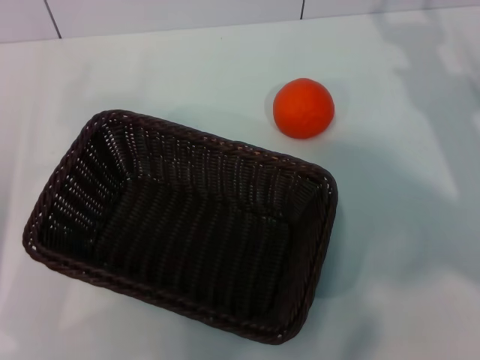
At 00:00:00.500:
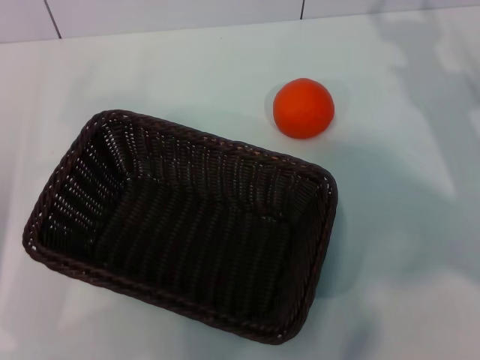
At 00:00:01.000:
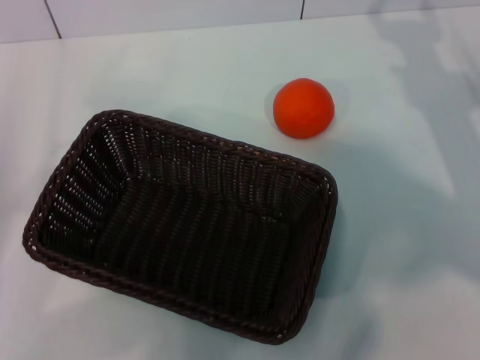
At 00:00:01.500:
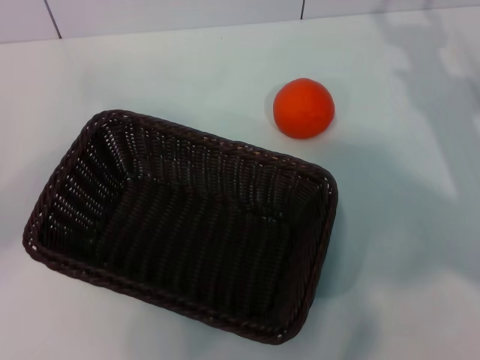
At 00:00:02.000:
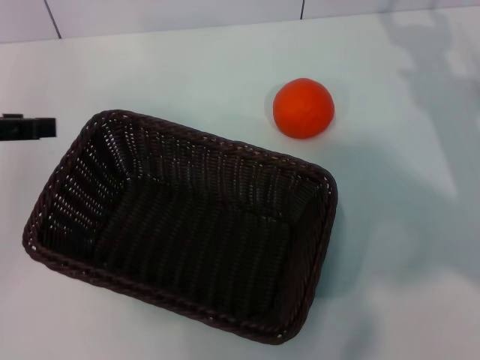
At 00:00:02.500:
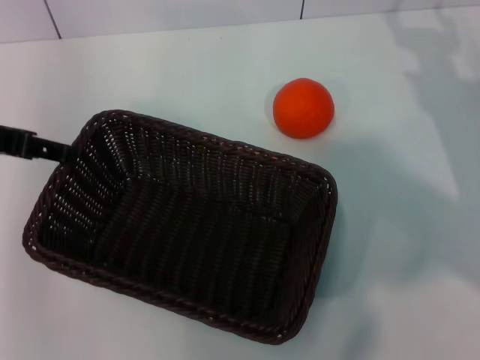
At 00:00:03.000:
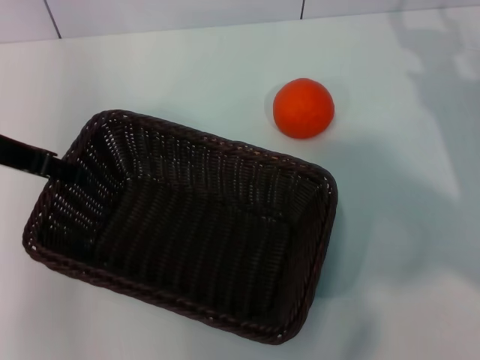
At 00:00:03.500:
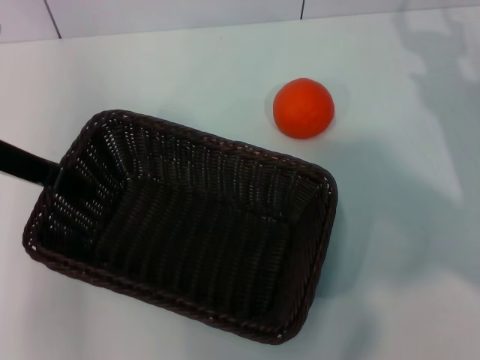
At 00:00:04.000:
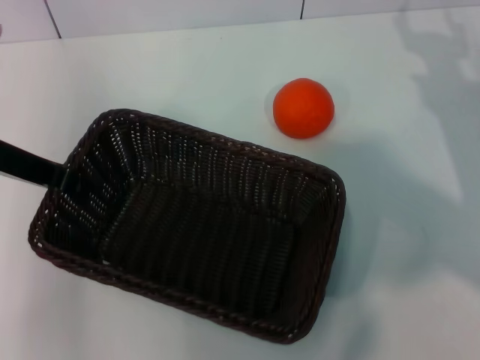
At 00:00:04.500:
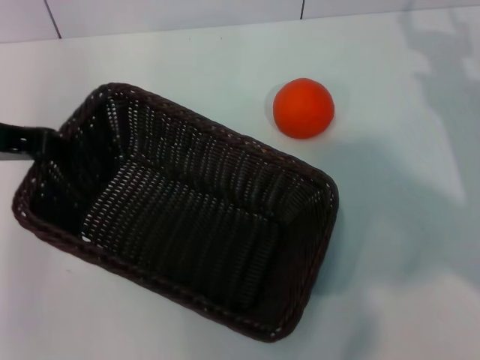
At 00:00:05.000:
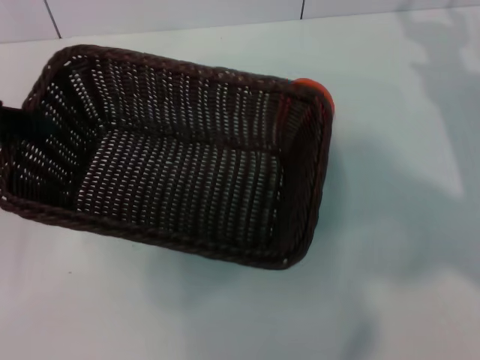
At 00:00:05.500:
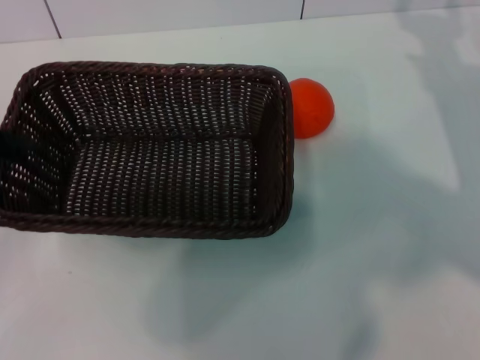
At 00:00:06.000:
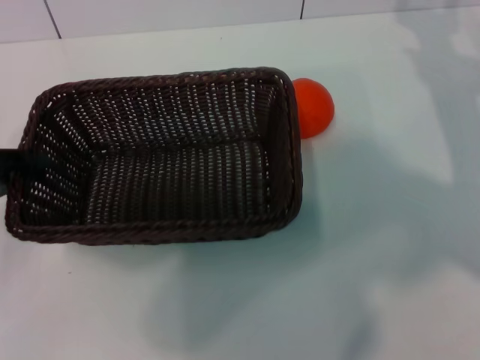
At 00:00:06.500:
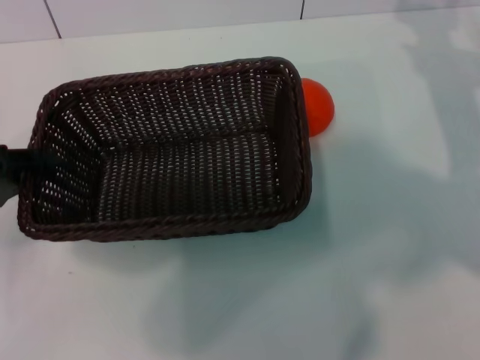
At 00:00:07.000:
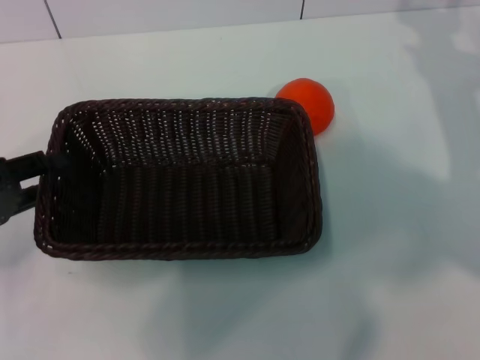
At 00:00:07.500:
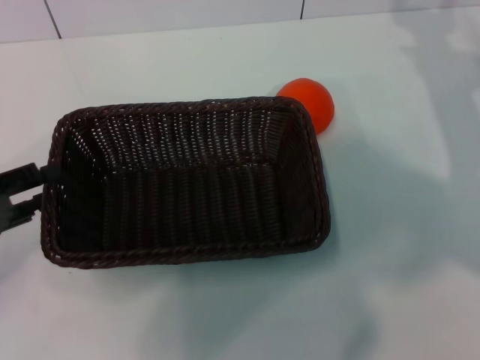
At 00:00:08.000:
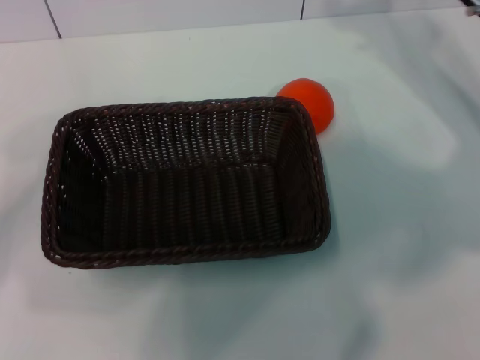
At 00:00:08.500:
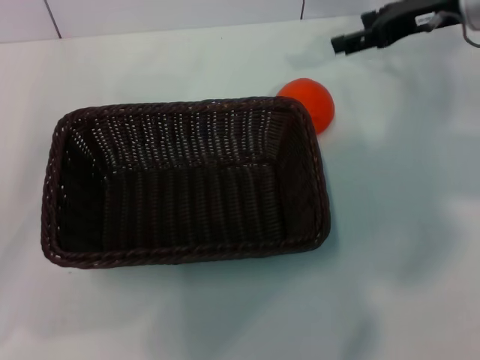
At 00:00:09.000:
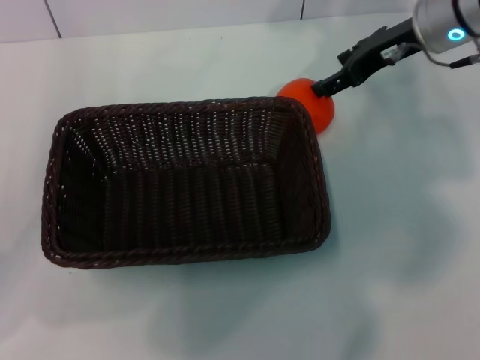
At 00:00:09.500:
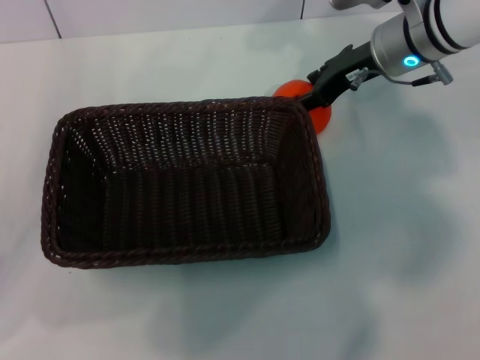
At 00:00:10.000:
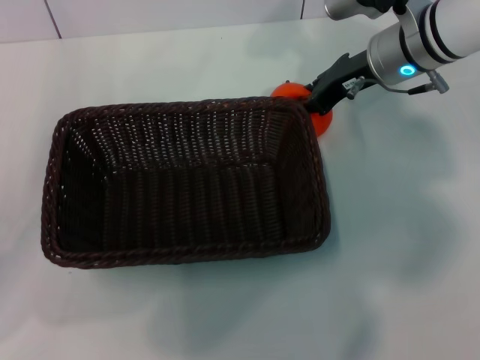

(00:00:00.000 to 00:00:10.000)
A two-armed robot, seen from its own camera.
Task of the whole recording: the left gripper pick up the black basket and place it horizontally in the middle of the table, the right gripper pick up the orange and place it into the black basket.
Step, 00:00:00.000 - 00:00:04.000: Pick up the dark basket with the left gripper.
Step, 00:00:04.500 - 00:00:07.000: Place the dark basket in the center of view with the left gripper.
00:00:00.000 - 00:00:02.000: The left gripper is displaced upward and forward by about 15 cm.
00:00:02.000 - 00:00:04.000: The left gripper moves to the right, approximately 10 cm, and closes up.
00:00:04.000 - 00:00:06.000: The left gripper heads to the left, downward and backward, covering some 15 cm.
00:00:06.000 - 00:00:08.000: The right gripper changes place by some 5 cm; the left gripper opens its fingers.
00:00:08.000 - 00:00:10.000: The right gripper shifts approximately 10 cm to the left, and closes its fingers.

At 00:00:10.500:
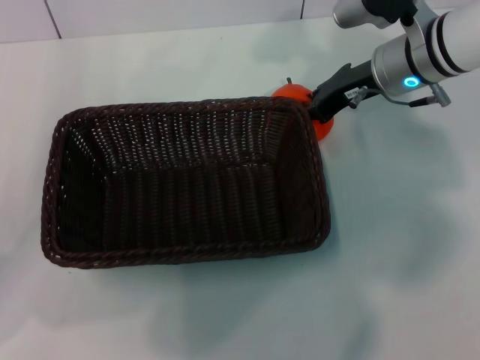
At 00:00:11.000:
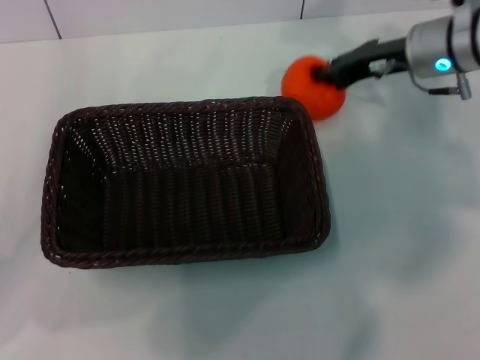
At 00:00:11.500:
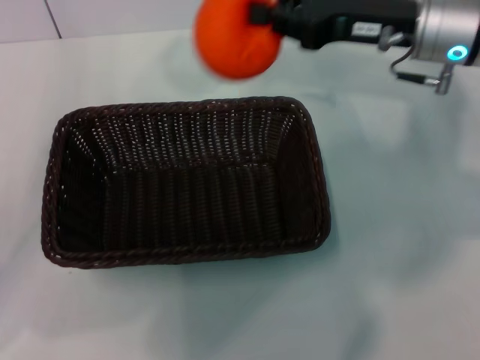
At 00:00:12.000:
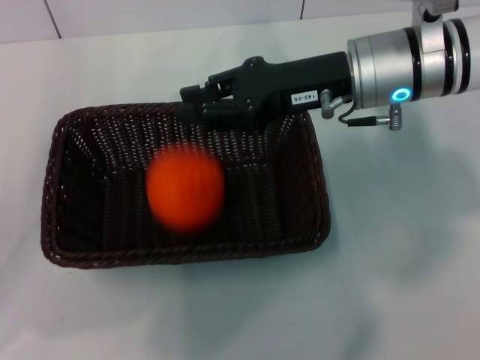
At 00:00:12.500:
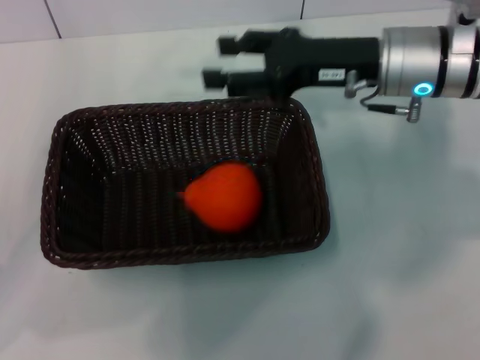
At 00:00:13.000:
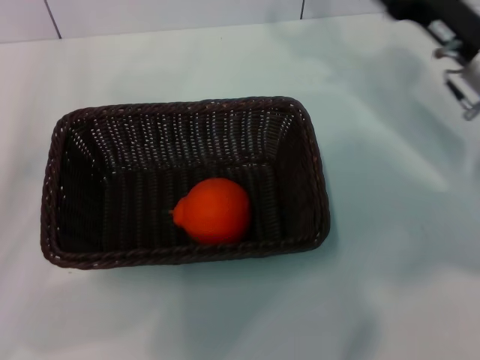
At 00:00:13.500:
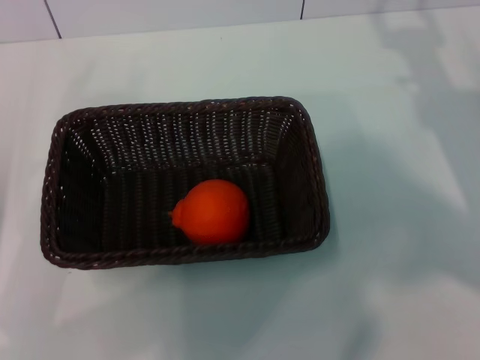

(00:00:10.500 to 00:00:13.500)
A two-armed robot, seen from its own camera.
Task of the whole recording: the left gripper pick up the black basket and place it horizontally in the middle of the table, the right gripper pick up the orange and place it into the black basket.
Step, 00:00:11.500 - 00:00:12.000: Place the orange into the dark basket with the right gripper.
00:00:10.500 - 00:00:12.000: The right gripper travels backward by some 5 cm.
00:00:12.000 - 00:00:13.500: The right gripper shifts roughly 20 cm to the right and downward, and opens up.

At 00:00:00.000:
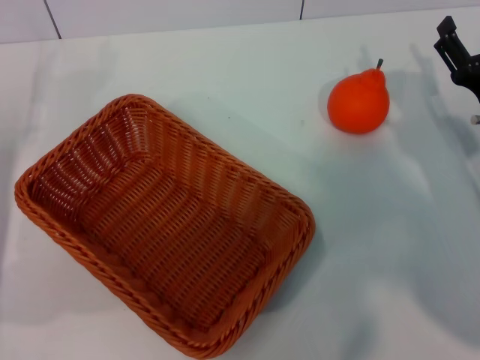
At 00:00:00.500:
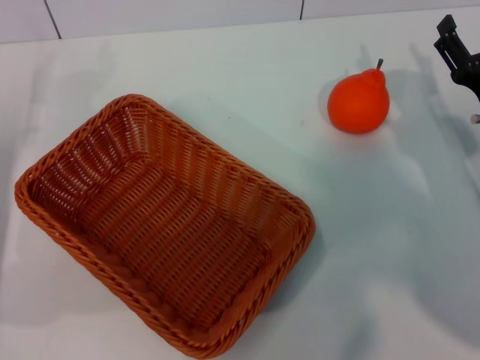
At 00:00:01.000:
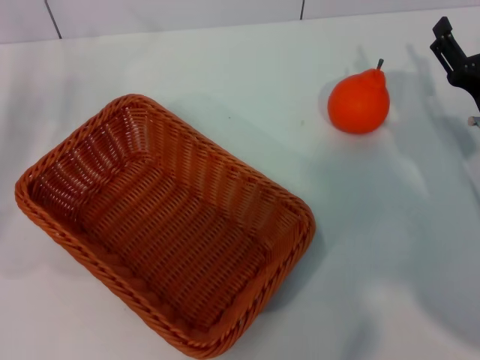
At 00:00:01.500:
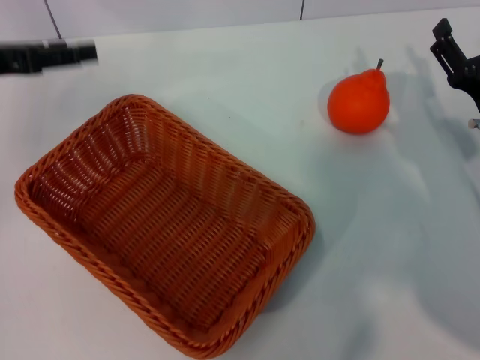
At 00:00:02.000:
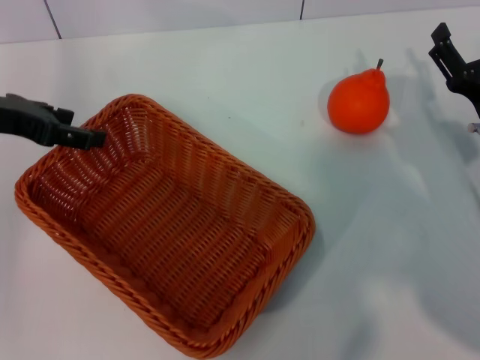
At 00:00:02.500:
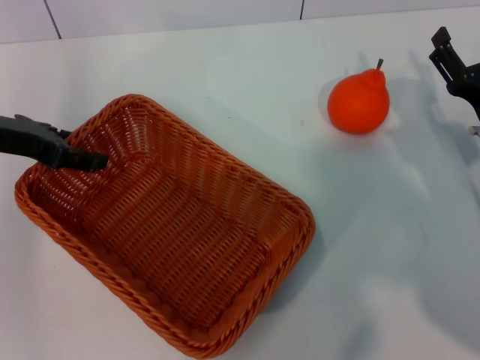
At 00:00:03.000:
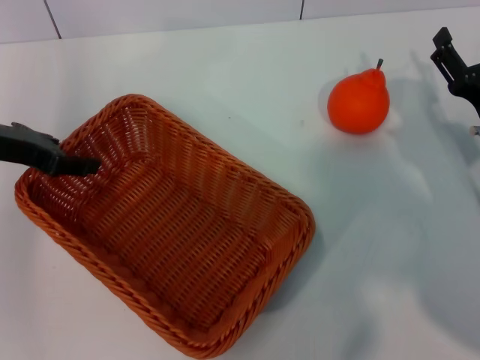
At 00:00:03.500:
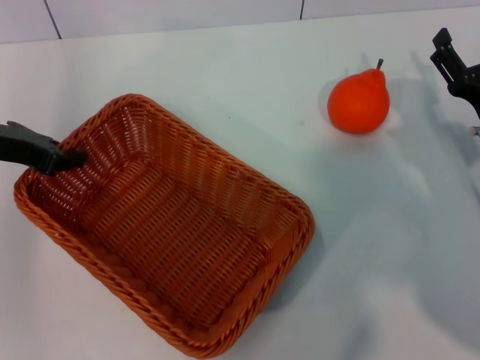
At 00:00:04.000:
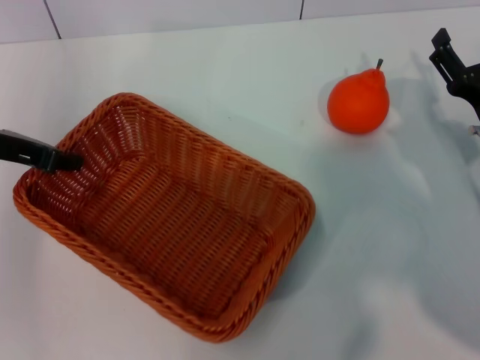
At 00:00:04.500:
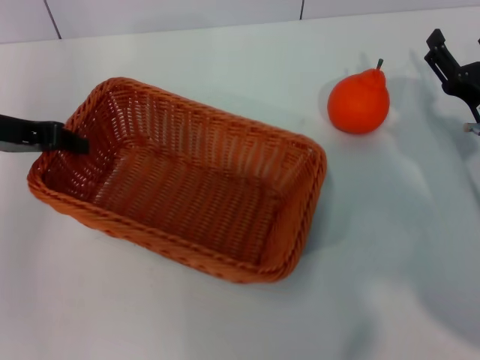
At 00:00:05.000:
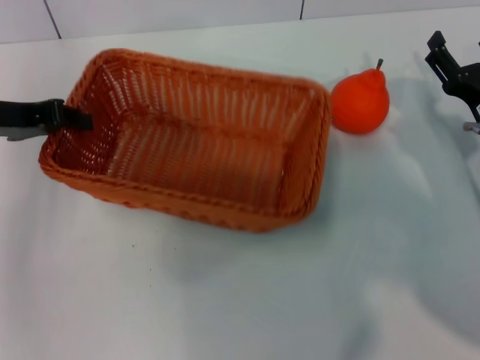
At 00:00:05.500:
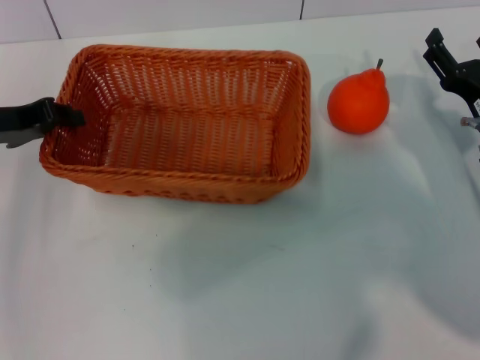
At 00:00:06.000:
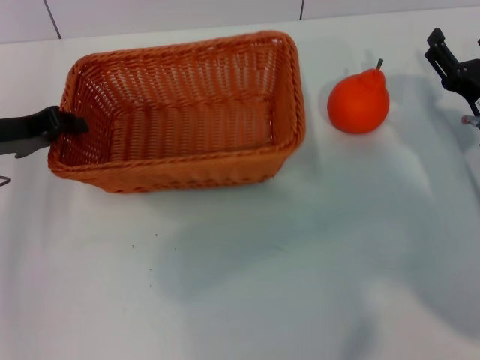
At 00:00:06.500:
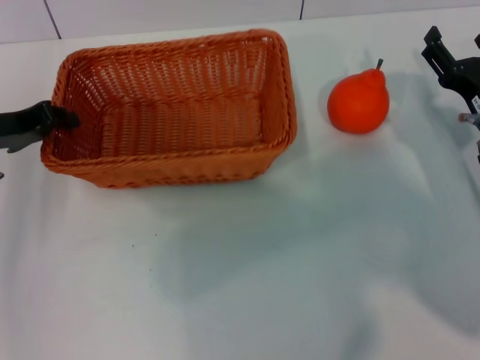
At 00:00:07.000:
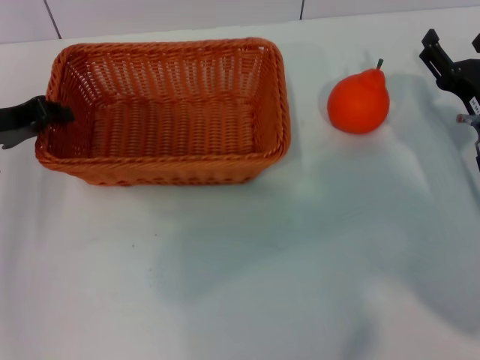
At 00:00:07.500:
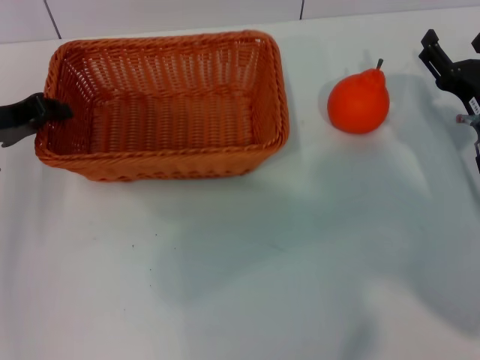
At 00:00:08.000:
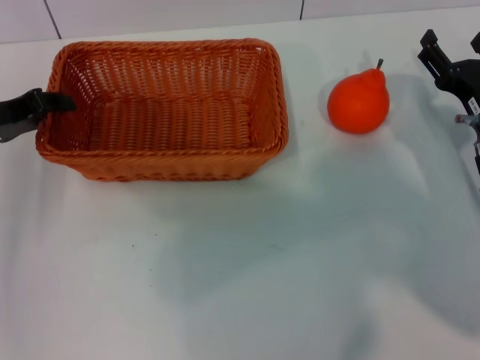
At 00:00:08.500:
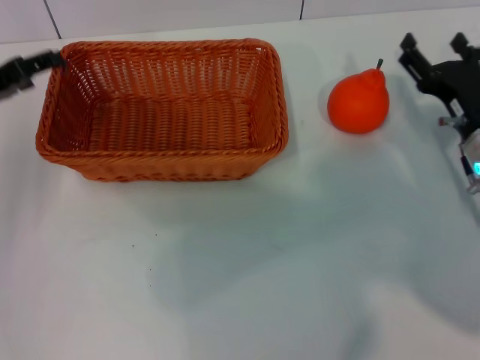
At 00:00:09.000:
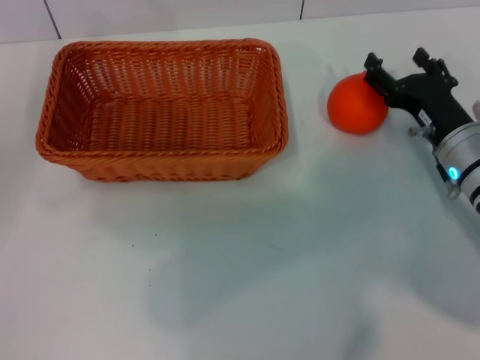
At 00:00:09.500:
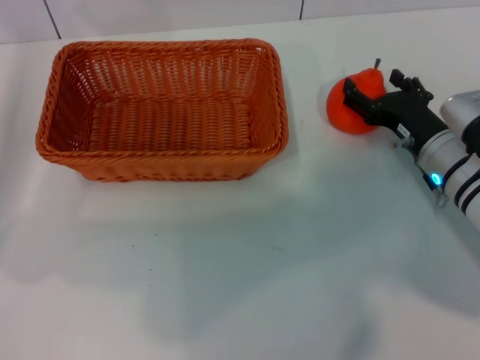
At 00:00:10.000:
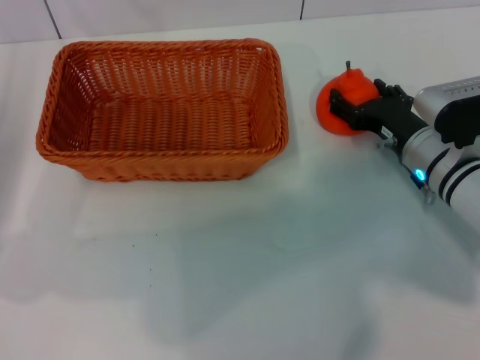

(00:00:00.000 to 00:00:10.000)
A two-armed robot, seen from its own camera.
Task of the whole recording: the left gripper pick up the yellow basket and place it horizontally in the middle of the table, the right gripper pick up the orange and place it into the yellow basket.
Step, 00:00:00.000 - 00:00:04.000: Pick up the light basket with the left gripper.
Step, 00:00:04.500 - 00:00:08.000: Place the light basket in the center of view with the left gripper.
00:00:00.000 - 00:00:02.000: The left gripper is displaced upward and forward by some 15 cm.
00:00:02.000 - 00:00:04.000: The left gripper closes its fingers.
00:00:06.000 - 00:00:08.000: There are only small adjustments of the grippers.
00:00:08.000 - 00:00:10.000: The left gripper ends up about 5 cm from where it was, and opens up. Meanwhile the right gripper shifts roughly 5 cm to the left.

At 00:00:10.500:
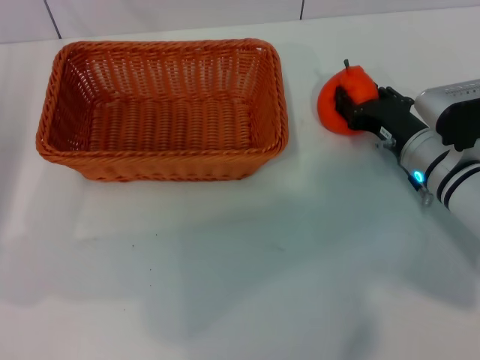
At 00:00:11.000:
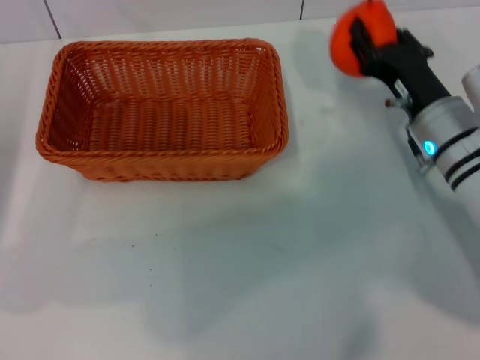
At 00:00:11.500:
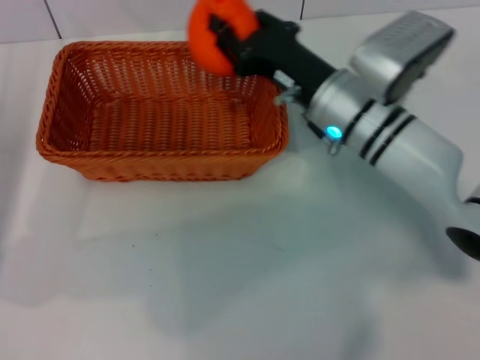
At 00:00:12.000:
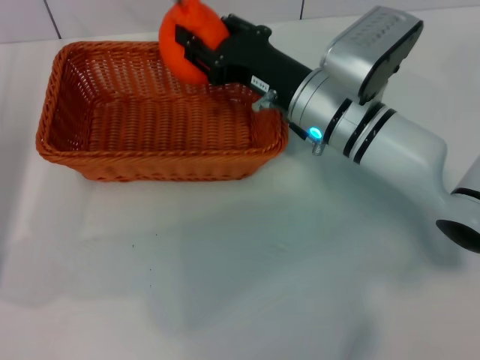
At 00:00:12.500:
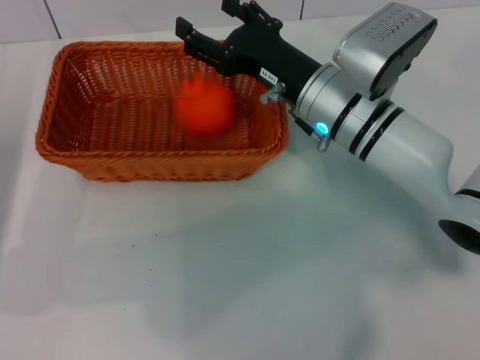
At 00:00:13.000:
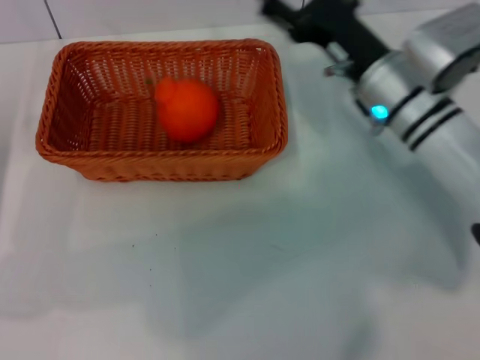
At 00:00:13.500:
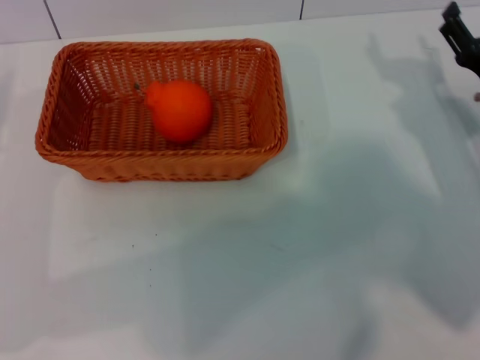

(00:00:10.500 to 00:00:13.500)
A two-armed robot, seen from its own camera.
Task of the whole recording: the left gripper pick up the yellow basket and place it horizontally in the middle of the table, the right gripper pick up the orange and place it into the yellow basket.
Step, 00:00:11.000 - 00:00:12.000: Place the orange into the light basket with the right gripper.
00:00:10.500 - 00:00:12.000: The right gripper travels to the left and upward by roughly 15 cm, and closes its fingers.
00:00:12.000 - 00:00:13.500: The right gripper travels to the right by approximately 20 cm, and opens up. The left gripper changes place by about 5 cm.
